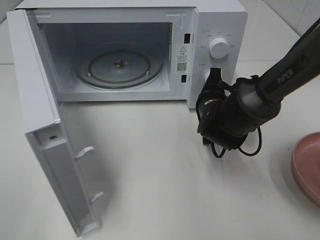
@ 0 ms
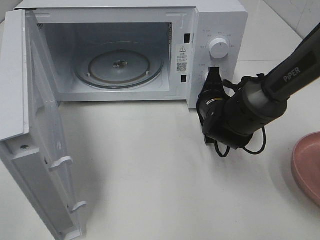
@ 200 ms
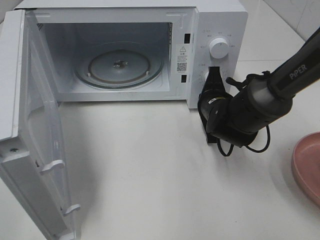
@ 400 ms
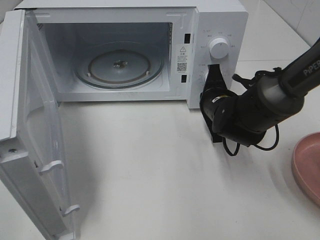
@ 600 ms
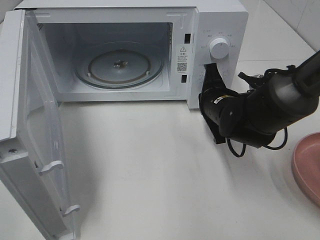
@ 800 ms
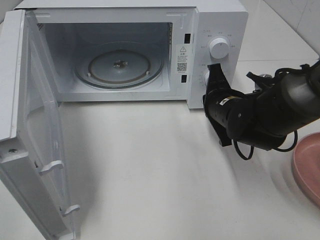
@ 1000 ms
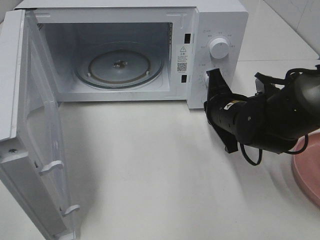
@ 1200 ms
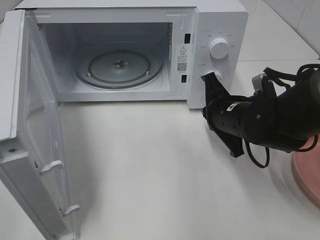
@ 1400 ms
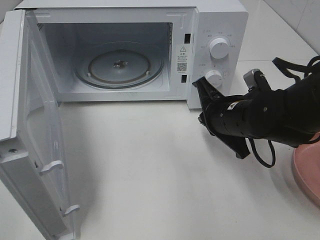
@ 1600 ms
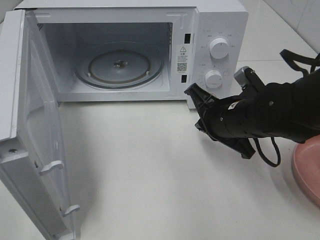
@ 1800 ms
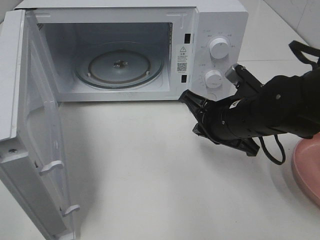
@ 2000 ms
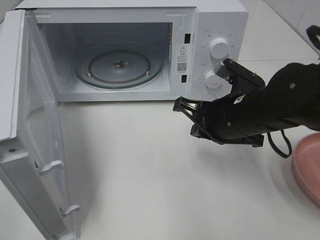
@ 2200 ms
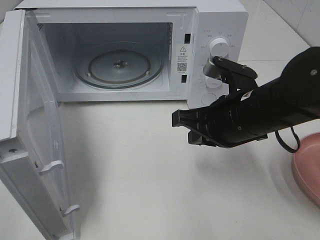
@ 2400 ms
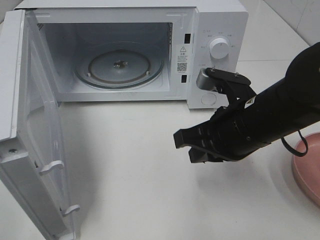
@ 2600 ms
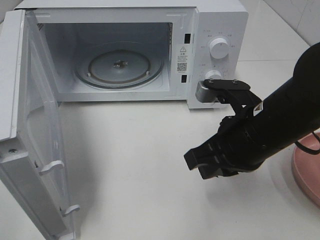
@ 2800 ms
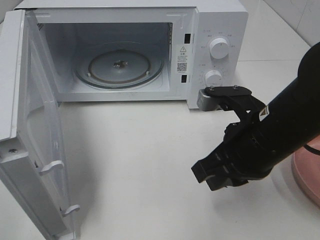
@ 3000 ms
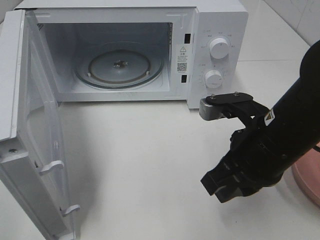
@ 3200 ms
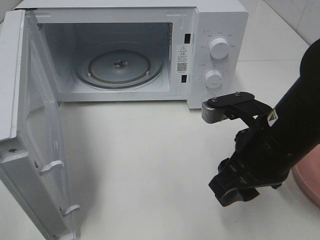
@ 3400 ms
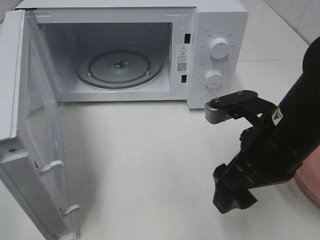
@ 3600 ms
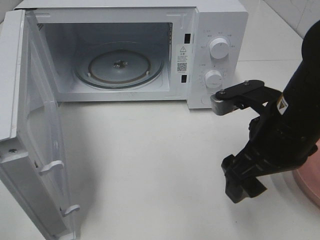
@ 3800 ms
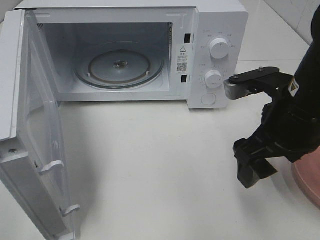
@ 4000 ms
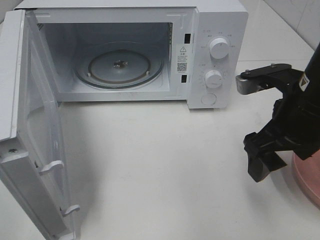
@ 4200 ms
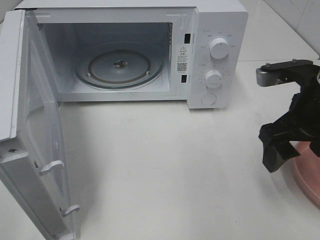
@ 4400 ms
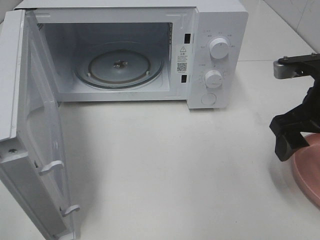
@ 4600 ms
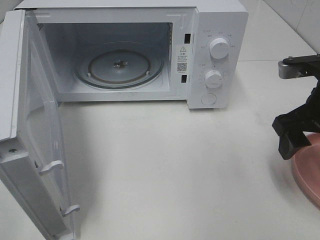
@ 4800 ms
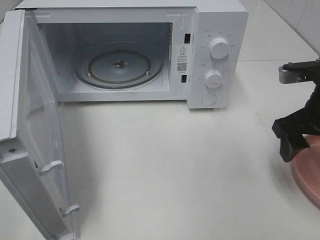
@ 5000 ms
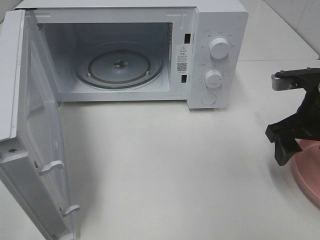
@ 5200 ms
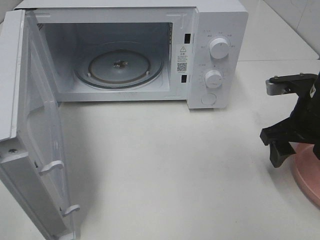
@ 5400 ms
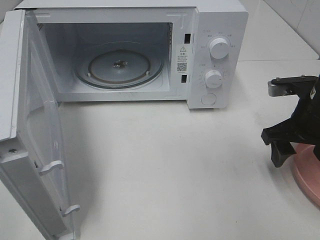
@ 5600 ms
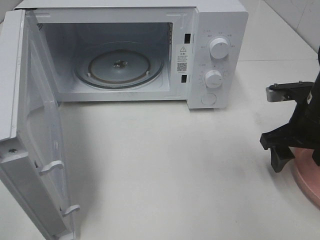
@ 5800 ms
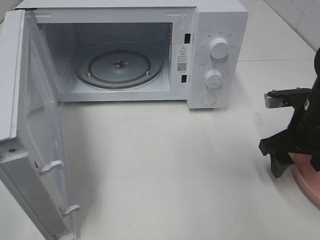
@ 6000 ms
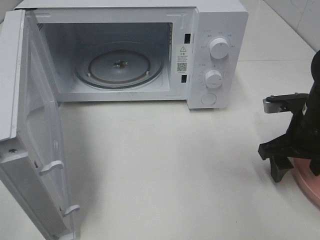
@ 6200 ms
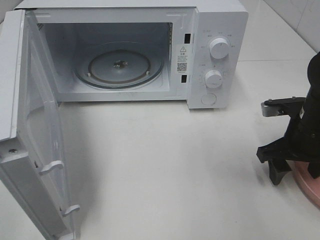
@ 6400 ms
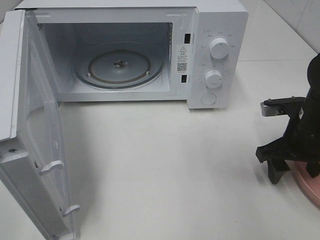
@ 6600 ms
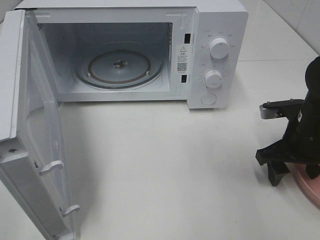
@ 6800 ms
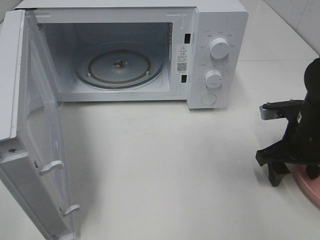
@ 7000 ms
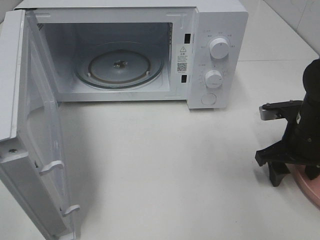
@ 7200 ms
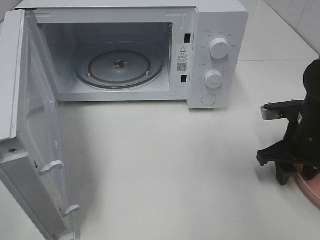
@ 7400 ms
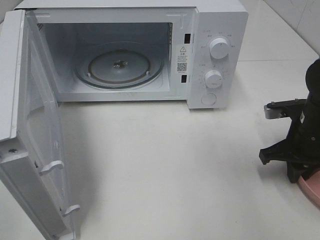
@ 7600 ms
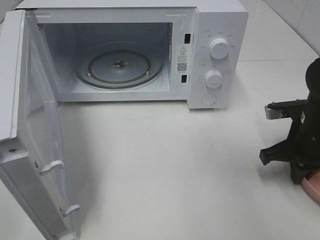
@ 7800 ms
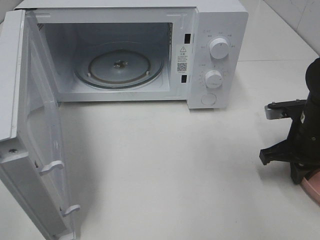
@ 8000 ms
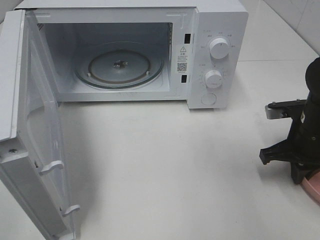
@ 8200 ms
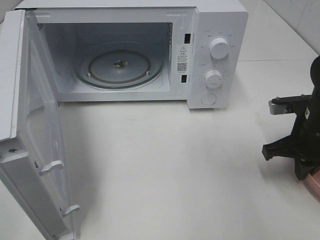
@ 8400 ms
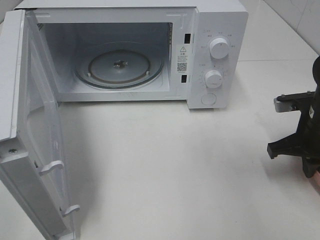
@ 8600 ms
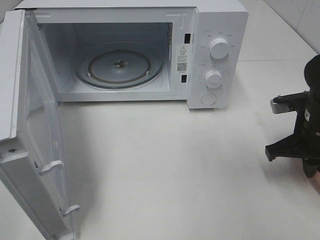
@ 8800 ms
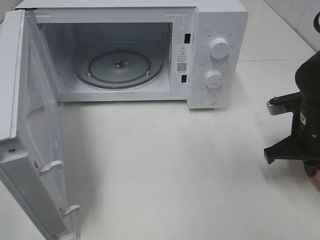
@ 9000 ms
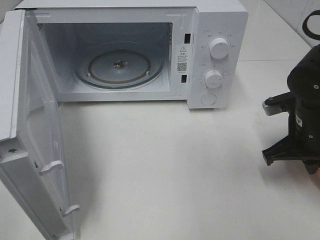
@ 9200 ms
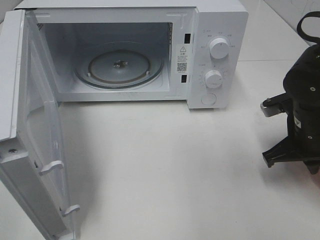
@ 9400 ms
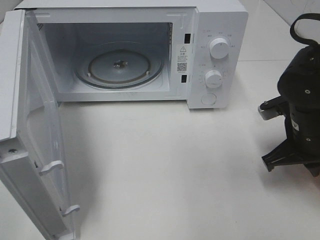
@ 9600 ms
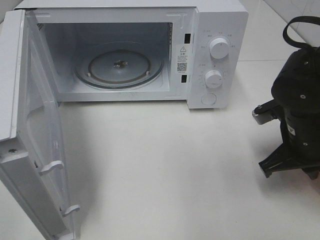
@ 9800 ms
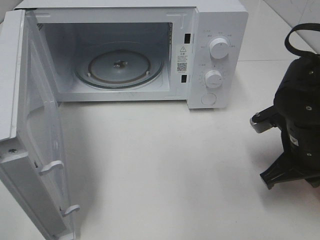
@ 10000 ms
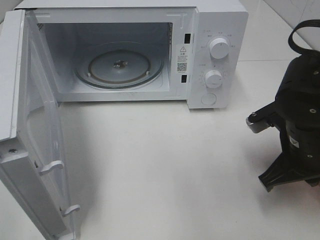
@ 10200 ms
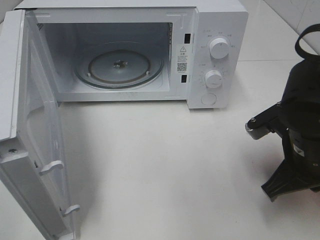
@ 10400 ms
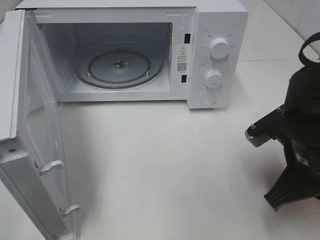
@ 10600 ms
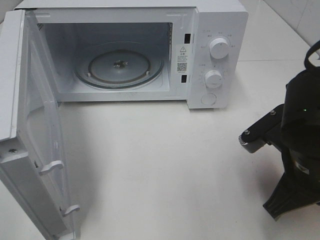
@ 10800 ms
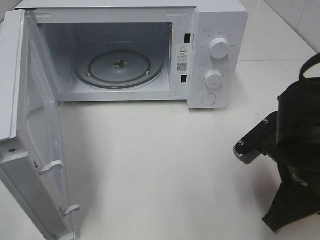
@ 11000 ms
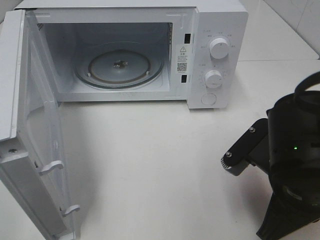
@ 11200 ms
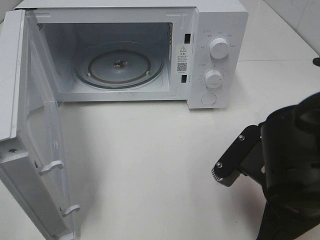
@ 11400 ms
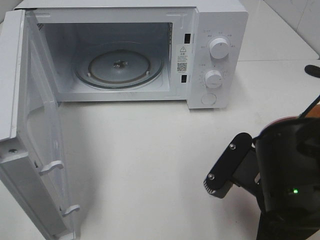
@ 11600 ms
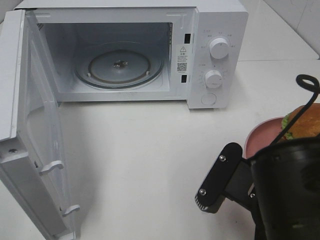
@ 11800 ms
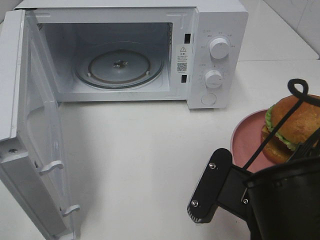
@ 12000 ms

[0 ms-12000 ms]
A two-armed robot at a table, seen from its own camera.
Task of the whole recording: Heat the burger.
Step, 1000 ms to 7800 ms: Right hand: grab the plate with the hamburger.
0 ms to 1600 ms: The right gripper is displaced backward by roughly 5 cm.
1600 ms to 3000 ms: The right gripper is displaced backward and upward by some 10 cm.
3000 ms to 4400 ms: The right gripper travels to the right by roughly 10 cm, and opens up.
4400 ms to 6000 ms: The right gripper shifts about 10 cm downward.
6000 ms to 7600 ms: The right gripper closes its fingers.
7600 ms to 9000 ms: The grippers make only small movements.
9000 ms to 10400 ms: The right gripper is displaced backward and to the left by approximately 10 cm.
10400 ms to 12000 ms: The right gripper moves backward and to the left, roughly 15 cm.

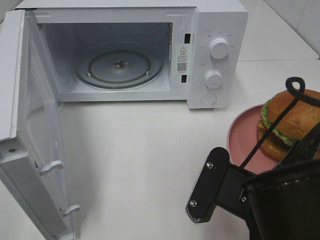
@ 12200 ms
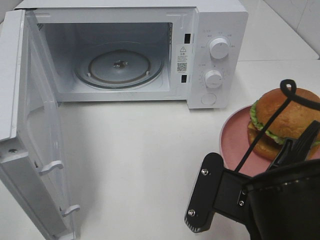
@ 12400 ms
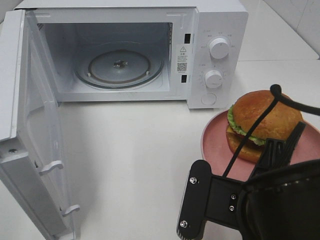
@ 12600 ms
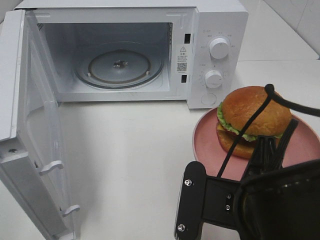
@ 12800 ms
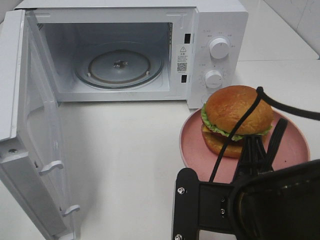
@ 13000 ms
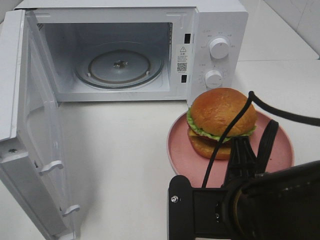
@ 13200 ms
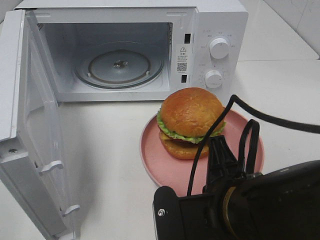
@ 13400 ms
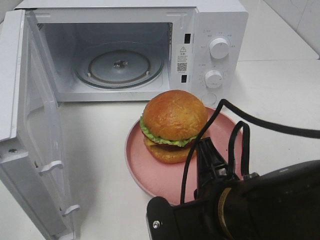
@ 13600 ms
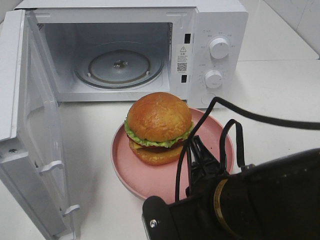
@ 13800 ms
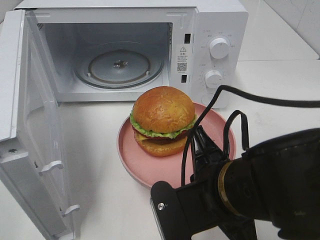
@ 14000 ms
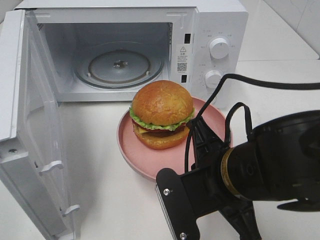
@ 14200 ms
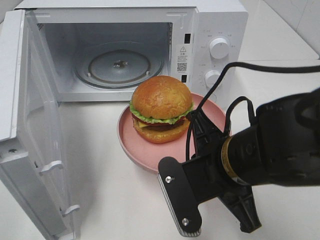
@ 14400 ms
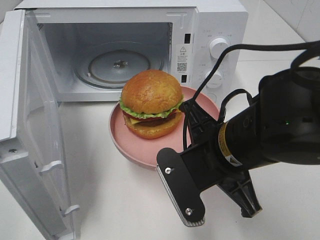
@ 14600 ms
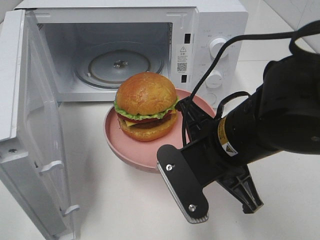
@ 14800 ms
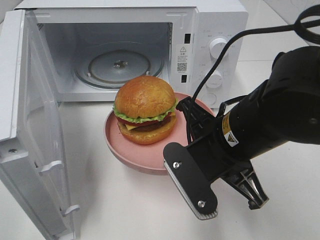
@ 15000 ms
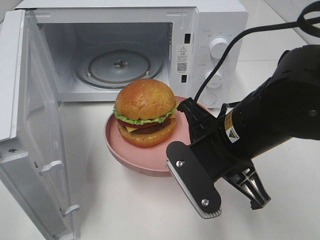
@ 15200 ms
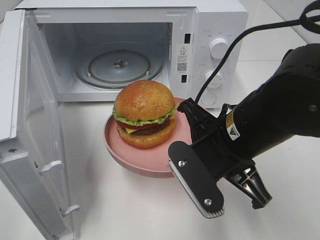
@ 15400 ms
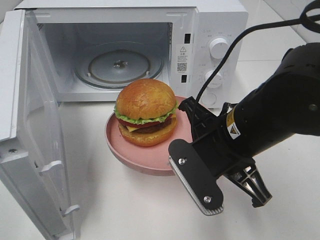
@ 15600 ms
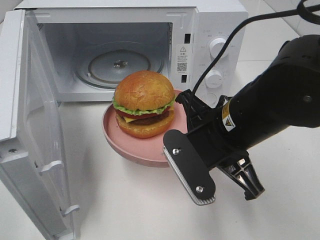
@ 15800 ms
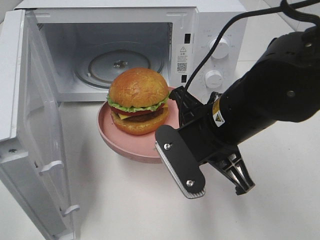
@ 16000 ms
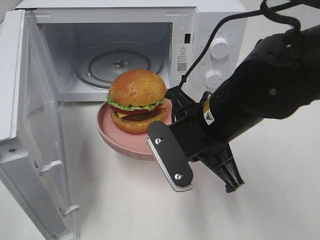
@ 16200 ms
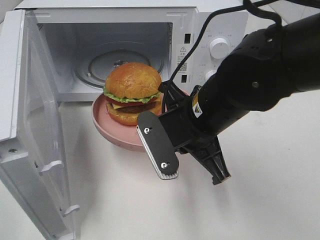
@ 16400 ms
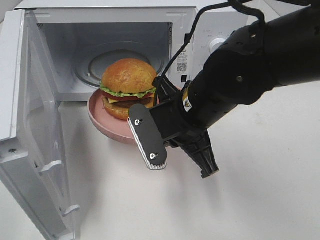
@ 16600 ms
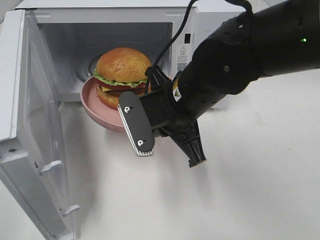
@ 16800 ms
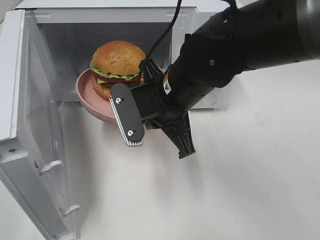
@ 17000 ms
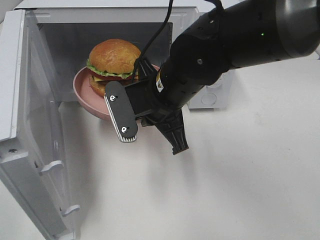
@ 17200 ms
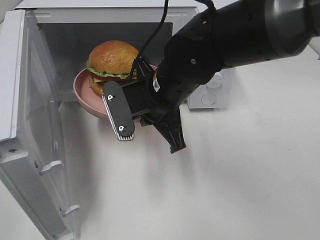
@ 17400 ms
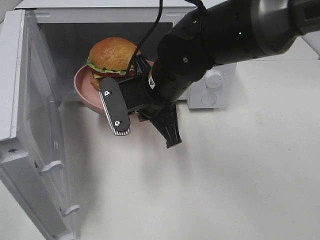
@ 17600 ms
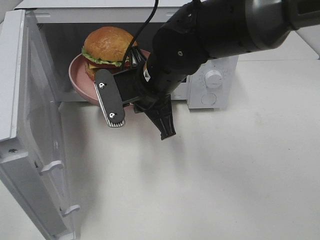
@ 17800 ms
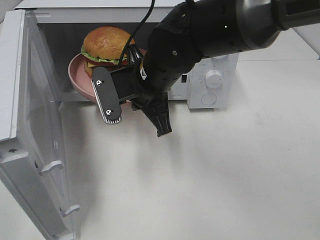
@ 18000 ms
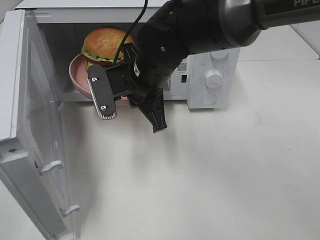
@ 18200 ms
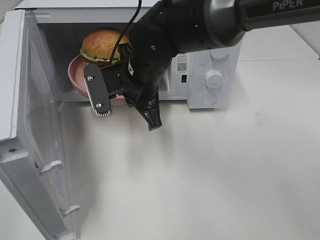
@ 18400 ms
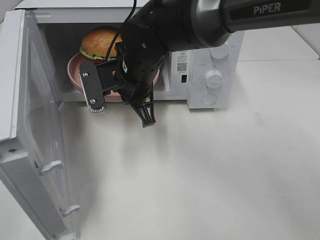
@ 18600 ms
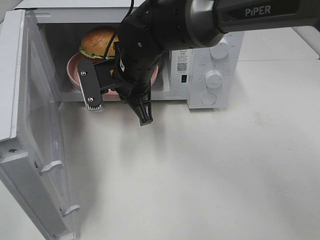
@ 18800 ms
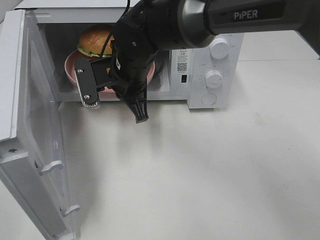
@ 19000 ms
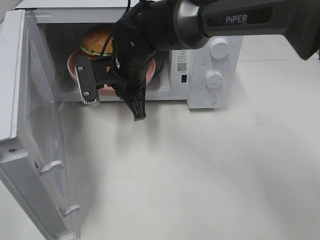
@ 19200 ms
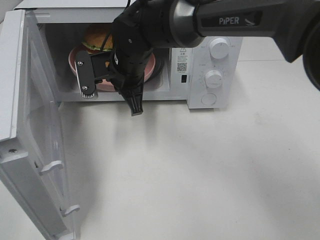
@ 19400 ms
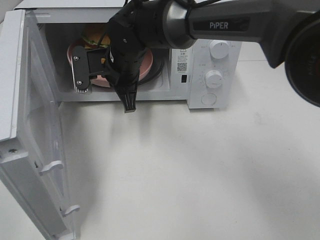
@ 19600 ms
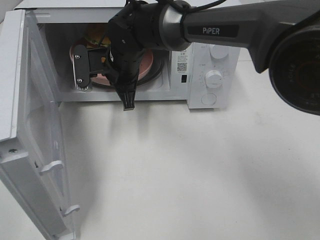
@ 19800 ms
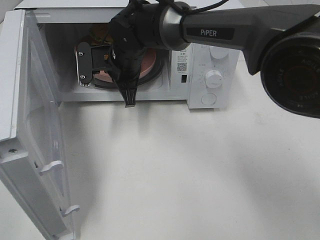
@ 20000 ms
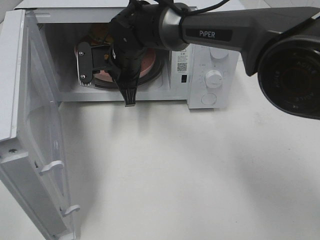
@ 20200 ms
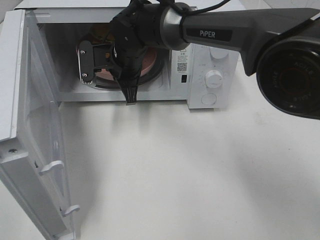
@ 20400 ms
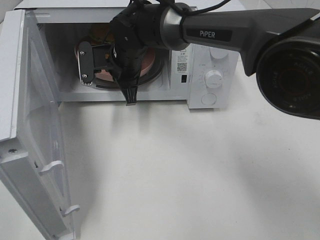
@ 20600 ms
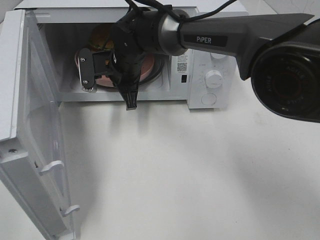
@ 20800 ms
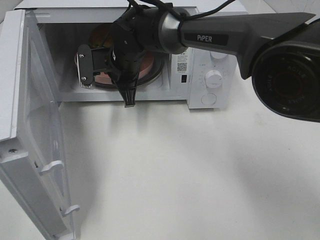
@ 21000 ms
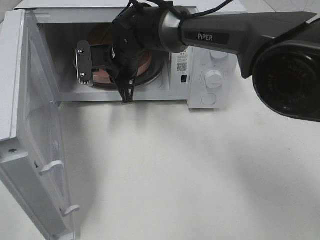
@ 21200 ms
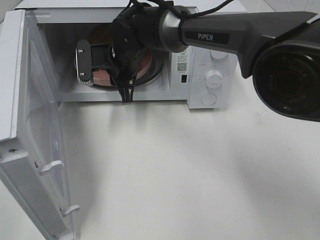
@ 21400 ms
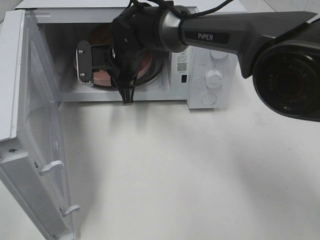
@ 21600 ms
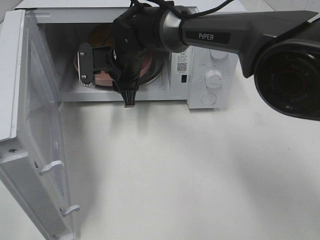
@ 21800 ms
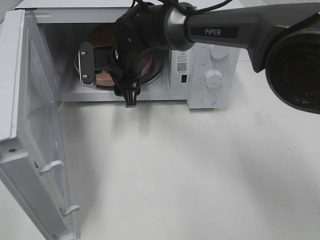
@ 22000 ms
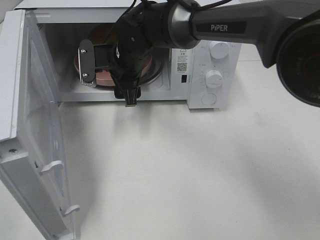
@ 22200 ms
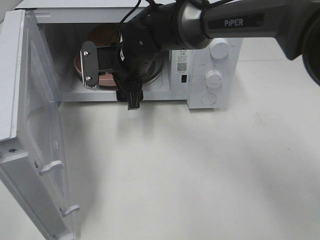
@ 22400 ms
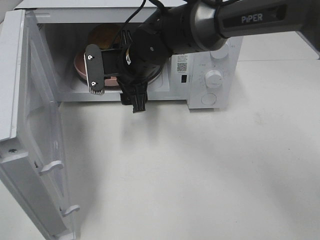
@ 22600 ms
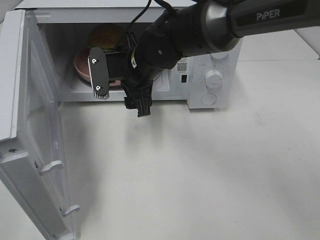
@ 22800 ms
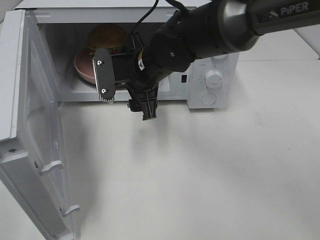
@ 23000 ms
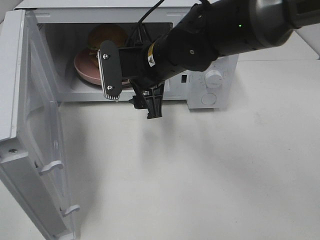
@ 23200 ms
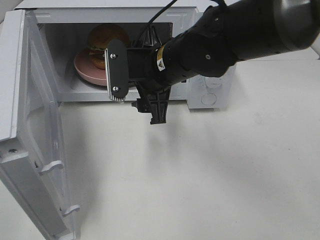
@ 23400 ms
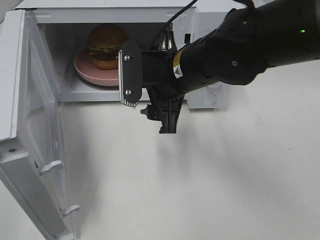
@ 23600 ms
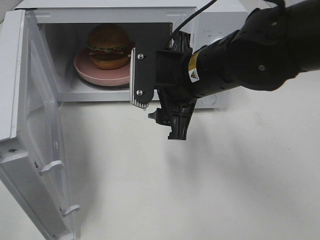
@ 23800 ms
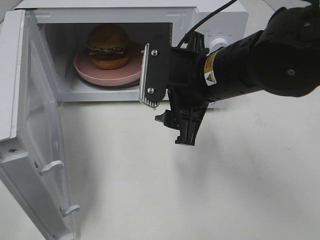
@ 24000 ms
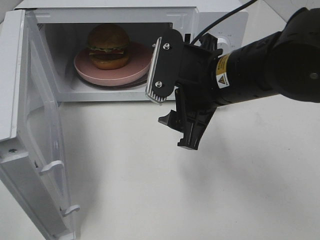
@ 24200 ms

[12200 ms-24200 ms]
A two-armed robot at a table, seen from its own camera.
Task of the whole recording: Heat the burger.
Step, 12200 ms to 21200 ms: Right hand: place the plate in the microwave.
13800 ms to 15200 ms: The right gripper goes some 10 cm forward.
15200 ms to 16600 ms: The right gripper shifts by some 5 cm.
16600 ms to 18200 ms: The right gripper heads forward and to the left, covering some 10 cm.
18200 ms to 19800 ms: The right gripper moves forward, some 10 cm.
19800 ms to 21200 ms: The grippers stay close to where they were, moving slightly.
21200 ms to 22600 ms: The right gripper shifts by some 5 cm, and opens.
22600 ms to 24200 ms: The right gripper travels backward, to the right and upward by approximately 20 cm.
